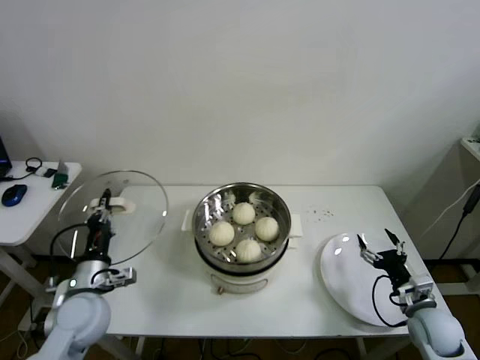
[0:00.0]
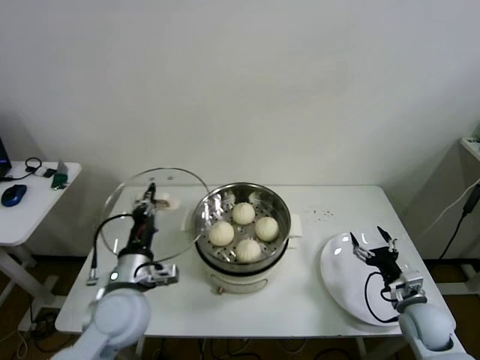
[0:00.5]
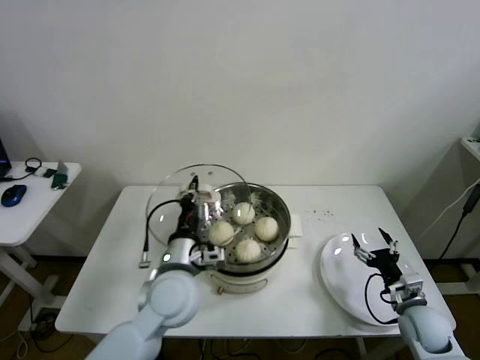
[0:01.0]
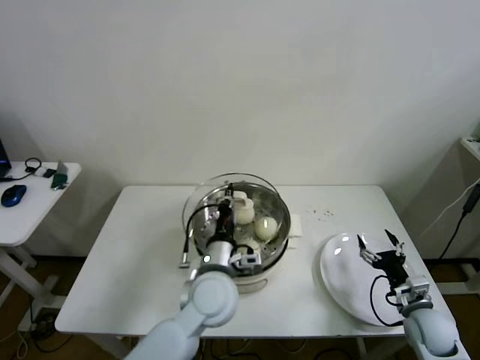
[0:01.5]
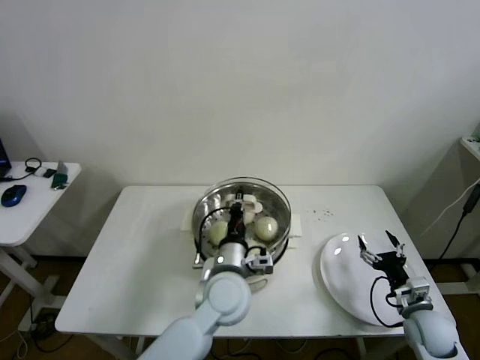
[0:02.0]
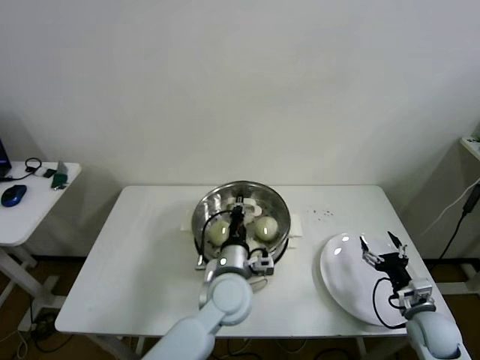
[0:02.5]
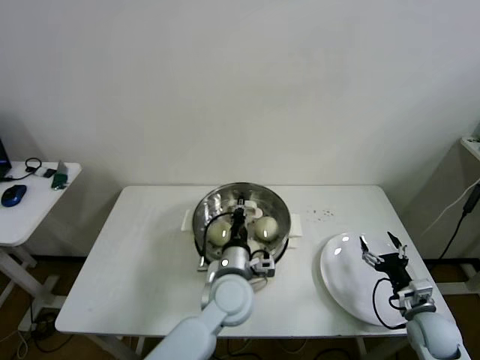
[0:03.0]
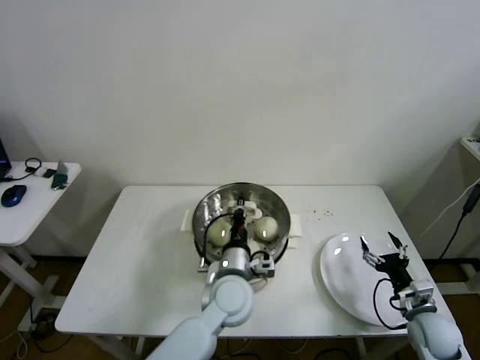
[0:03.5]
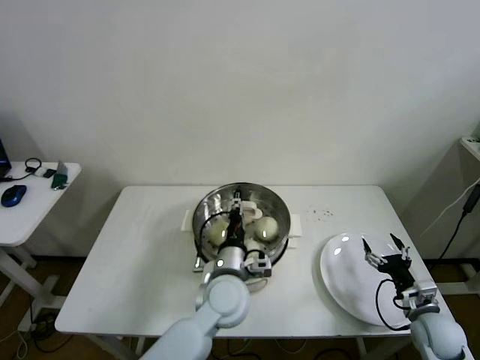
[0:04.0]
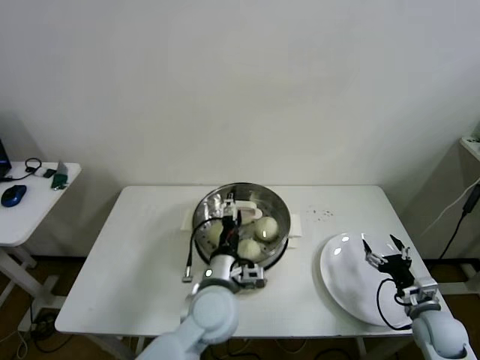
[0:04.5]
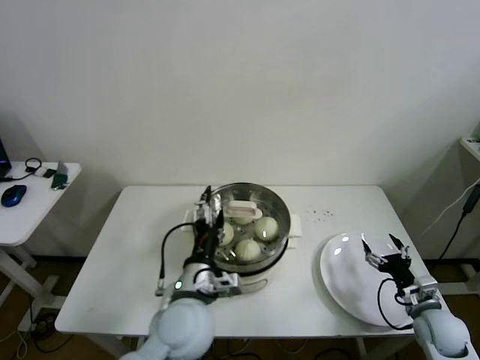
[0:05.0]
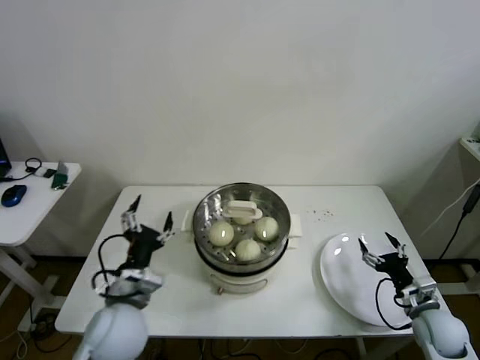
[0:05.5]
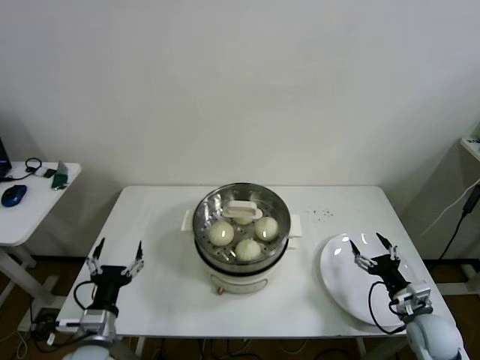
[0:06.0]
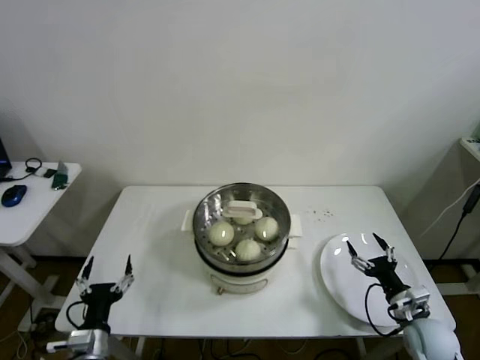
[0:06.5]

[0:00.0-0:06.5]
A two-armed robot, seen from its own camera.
Step, 0.0 to 4.0 s: Place the pot lid on the steamer with left gripper.
0.0 to 2.0 s: The left gripper shifts about 30 cm to the right.
2.0 to 4.5 s: The left gripper opens its fingers.
4.5 to 6.5 s: The left gripper travels to the left, backward and downward by approximately 30 cm.

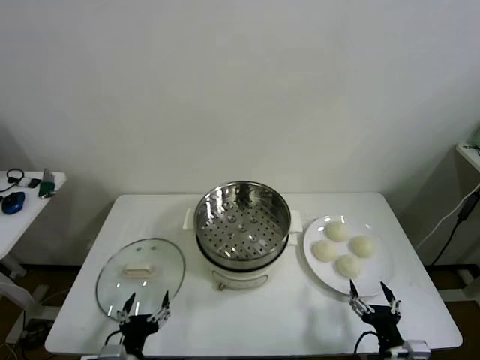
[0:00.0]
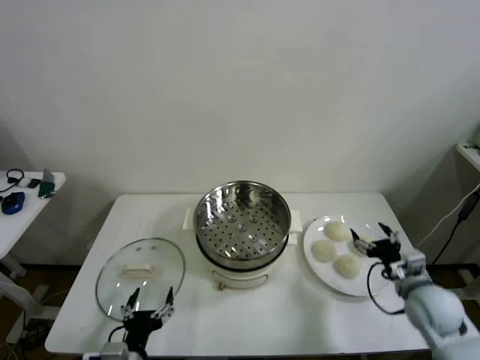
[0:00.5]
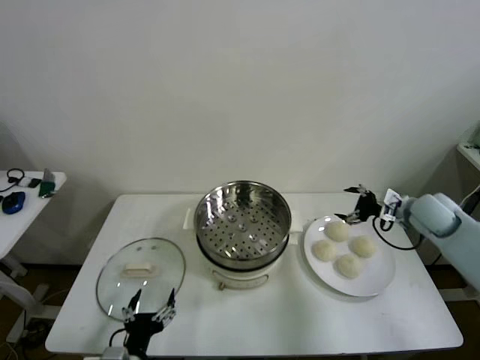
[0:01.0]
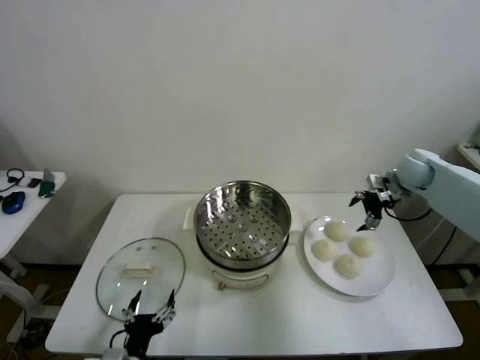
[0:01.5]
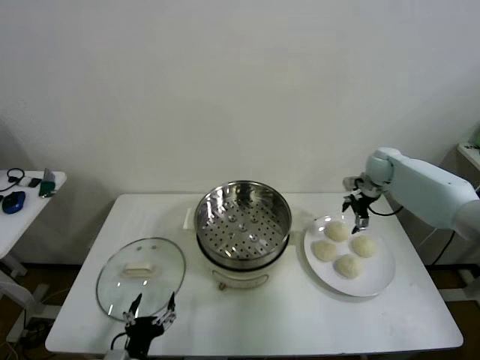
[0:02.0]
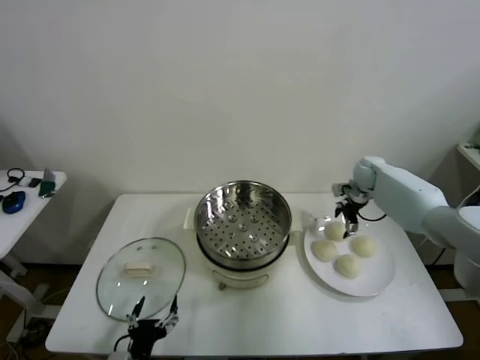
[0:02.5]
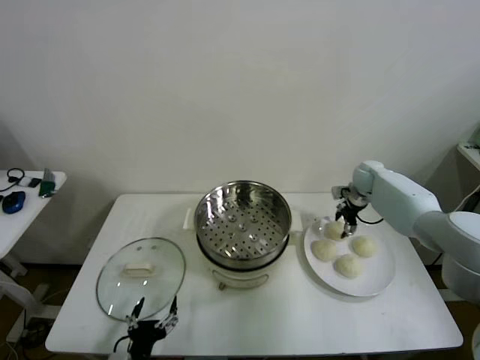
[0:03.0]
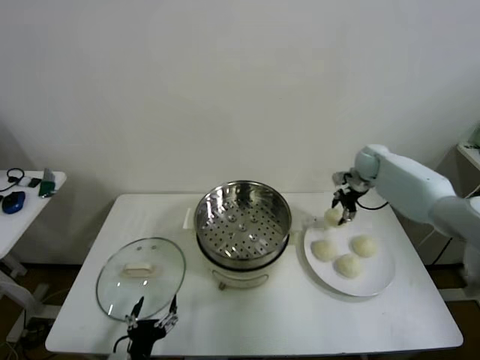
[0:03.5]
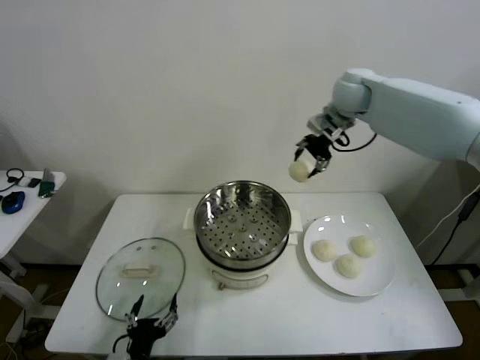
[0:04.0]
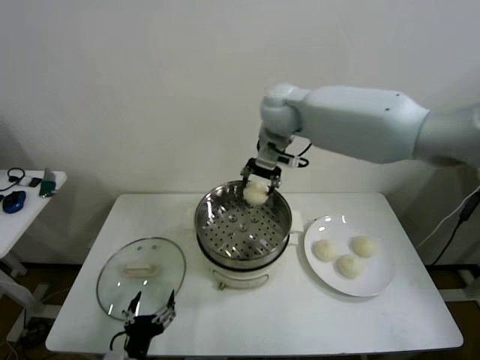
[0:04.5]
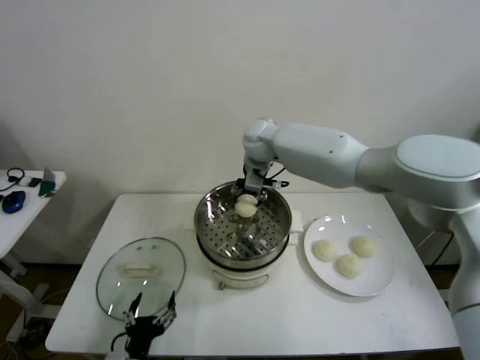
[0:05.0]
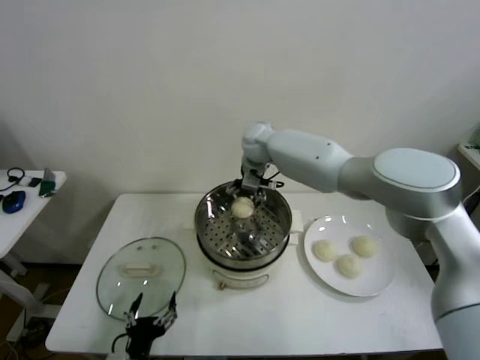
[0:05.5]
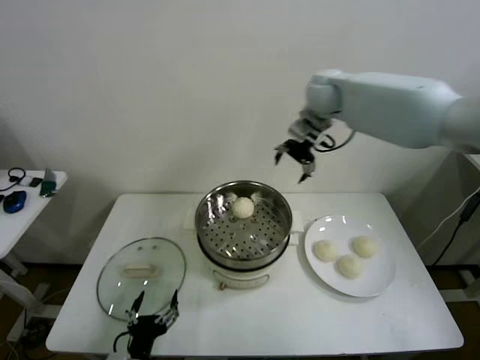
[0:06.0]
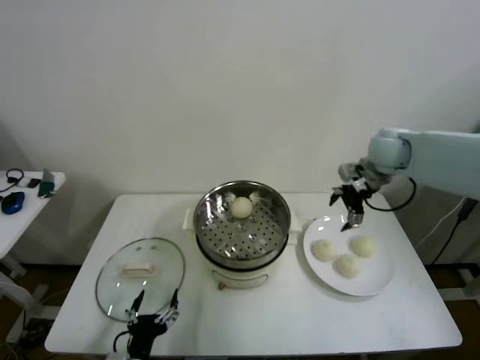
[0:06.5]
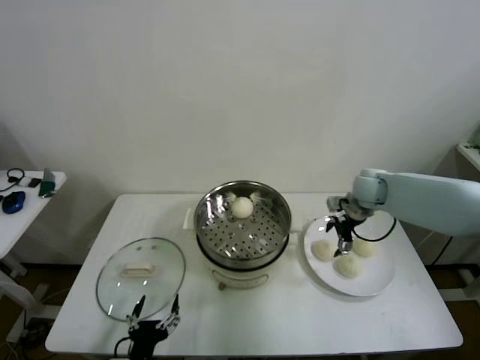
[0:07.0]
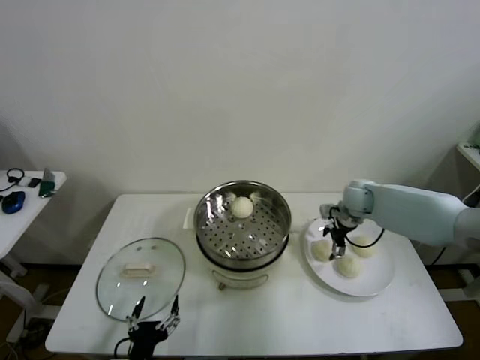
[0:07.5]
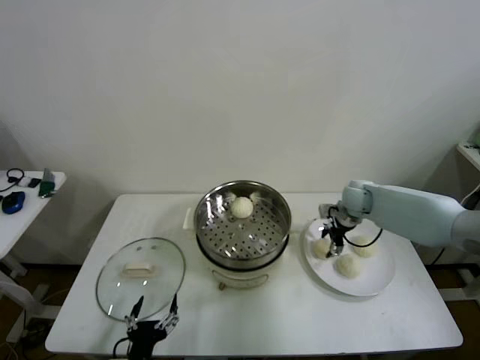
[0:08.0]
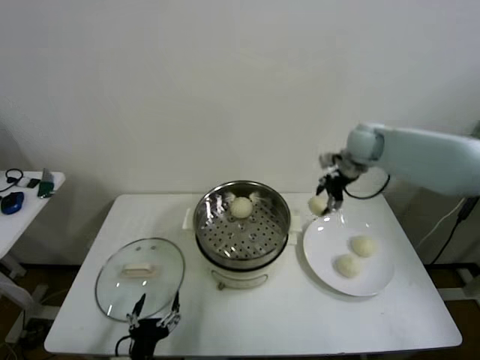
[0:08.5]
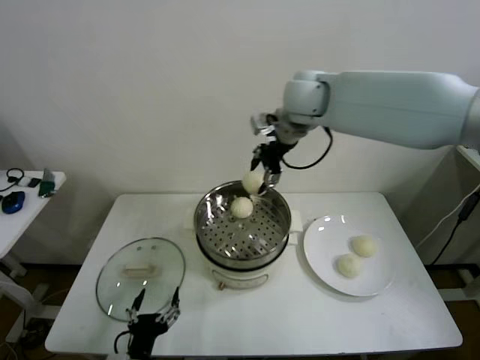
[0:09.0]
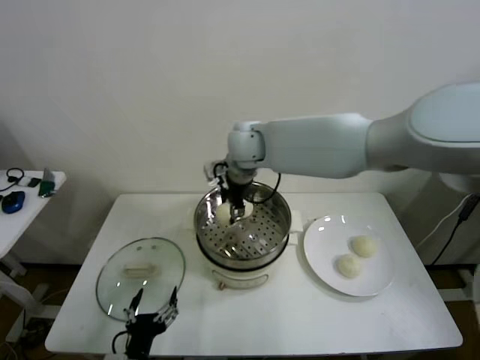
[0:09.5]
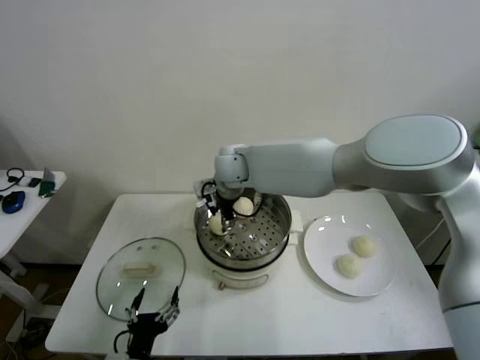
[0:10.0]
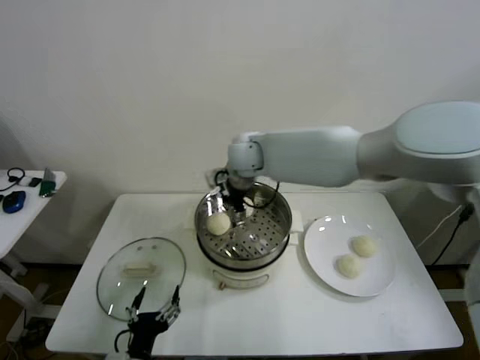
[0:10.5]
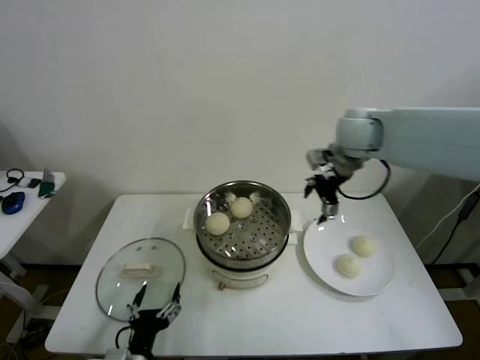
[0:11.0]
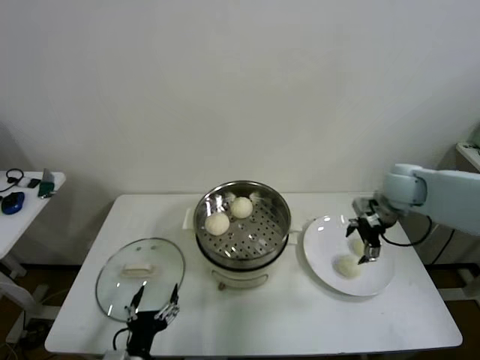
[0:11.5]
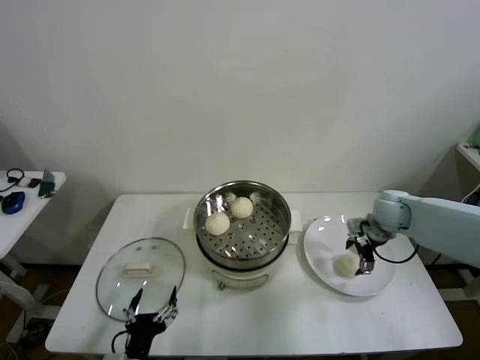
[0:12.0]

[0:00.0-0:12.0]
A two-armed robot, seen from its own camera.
Step, 0.0 to 3.0 s: Grasp the baozi in the plate with right gripper.
Step, 3.5 to 5.5 s: Place the baozi on the steamer with right gripper.
Step, 6.0 to 7.5 s: Grasp the baozi in the plate with right gripper.
Step, 8.5 to 10.0 s: Place the baozi on the steamer with right gripper.
2.0 to 4.0 s: The right gripper goes some 30 cm upward and to the left, and closes up.
4.0 to 6.0 s: The right gripper goes to the left and returns, some 15 cm each way, and opens its fingers.
6.0 to 8.0 s: The right gripper is displaced downward by approximately 25 cm, and closes up.
8.0 to 10.0 s: The right gripper goes some 35 cm to the left.
10.0 to 12.0 s: The right gripper shifts some 40 cm to the right, and opens its fingers.

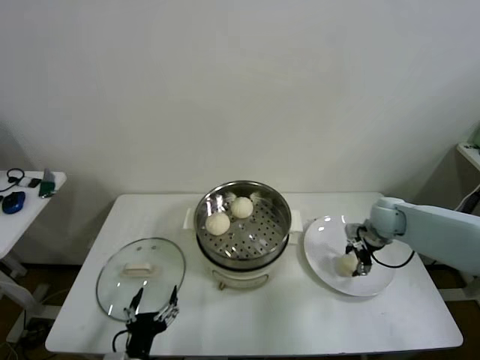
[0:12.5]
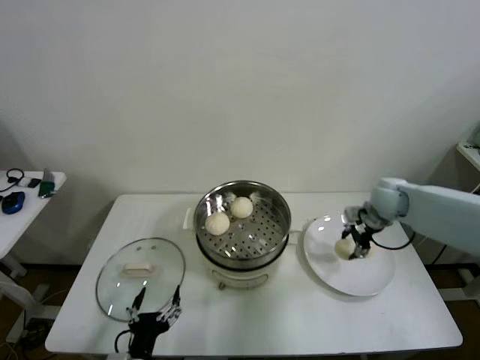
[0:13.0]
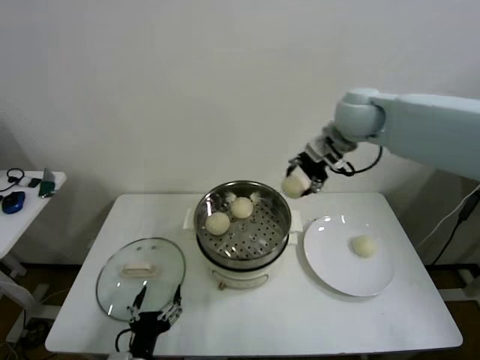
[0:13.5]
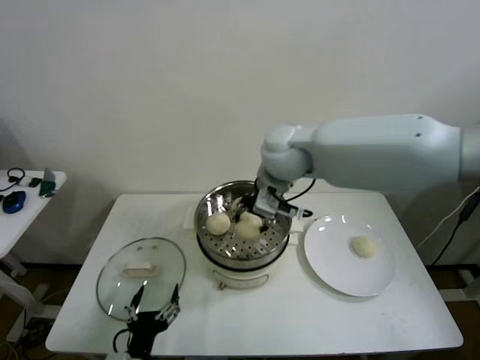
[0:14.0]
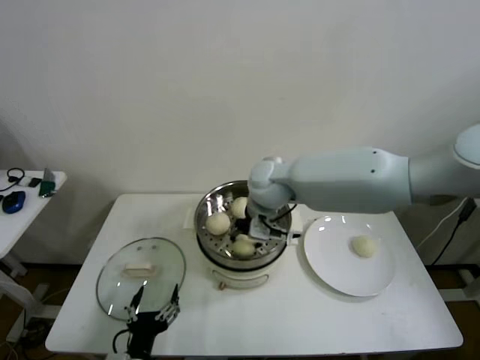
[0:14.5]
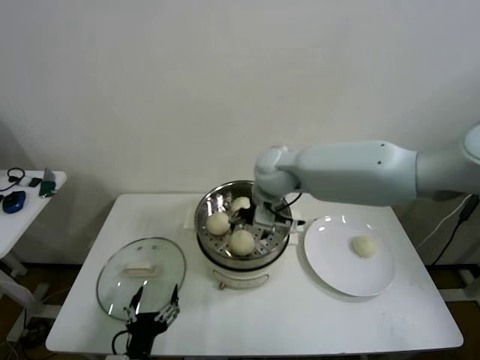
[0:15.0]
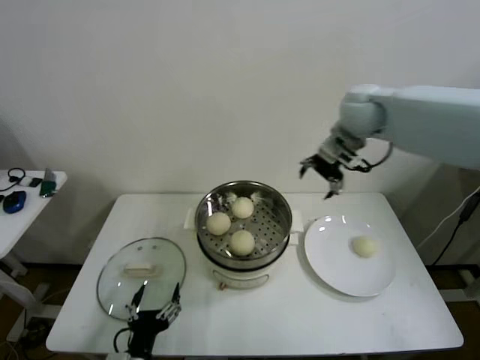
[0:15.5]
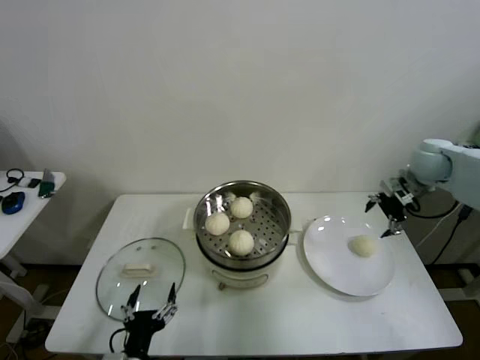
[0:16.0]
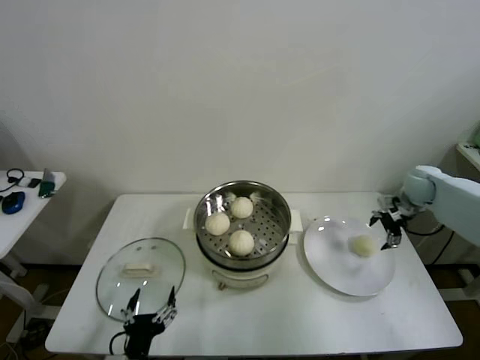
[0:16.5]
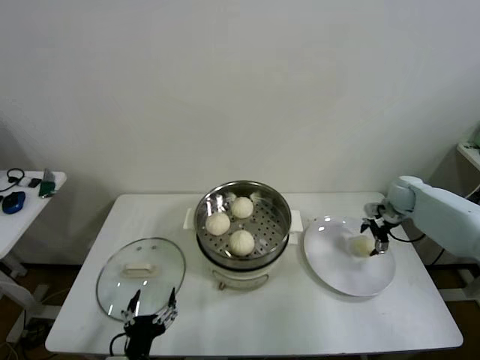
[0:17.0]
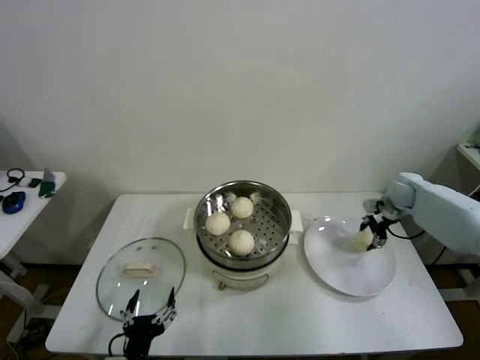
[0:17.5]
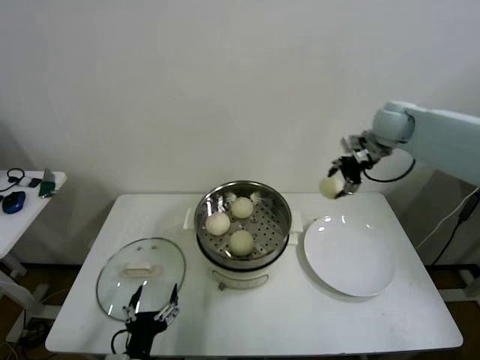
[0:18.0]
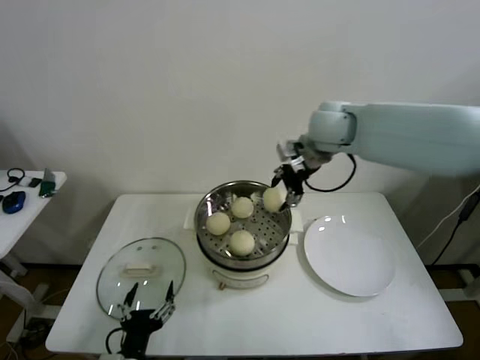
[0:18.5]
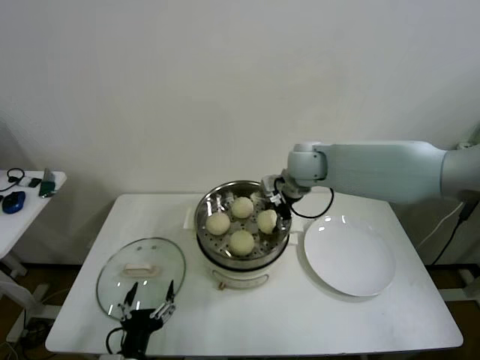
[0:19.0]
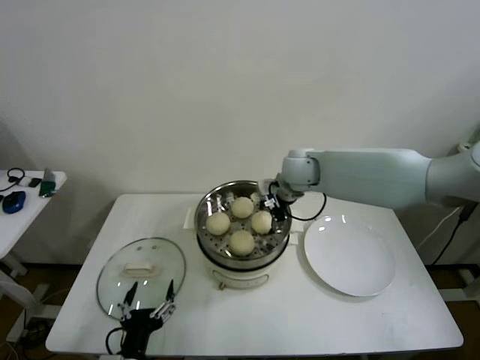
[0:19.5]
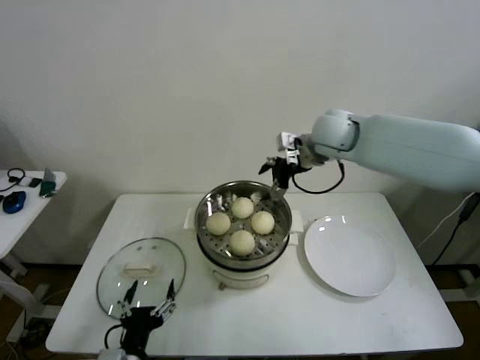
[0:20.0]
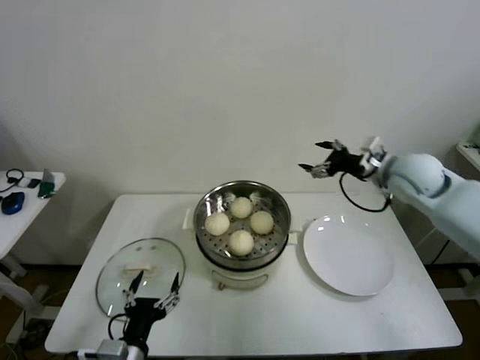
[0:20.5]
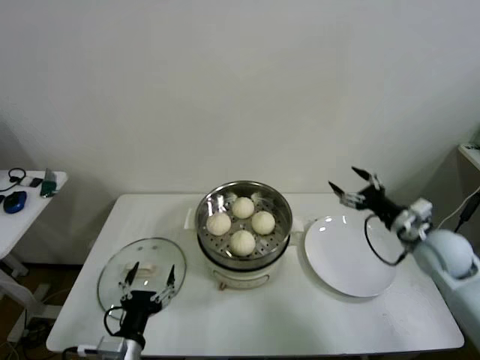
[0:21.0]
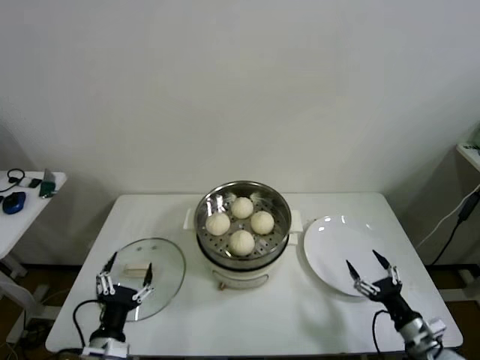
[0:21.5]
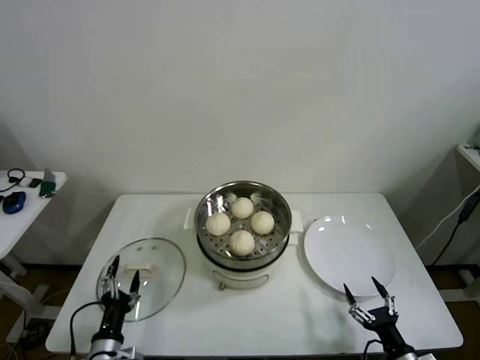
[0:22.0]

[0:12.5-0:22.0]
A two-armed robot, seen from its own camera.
Step, 12.5 to 14.5 s: Place the baozi on the steamer with right gripper.
Step, 15.0 to 17.0 s: Grasp the baozi in the plate with right gripper.
Step, 17.5 to 19.0 s: Place the baozi on the steamer with right gripper.
12.5 to 14.5 s: The right gripper is displaced to the left and upward by about 35 cm.
14.5 to 16.5 s: The right gripper heads to the right, covering roughly 40 cm, and opens its fingers.
16.5 to 18.0 s: The right gripper is displaced upward and to the left by roughly 25 cm, and closes its fingers.
18.0 to 20.0 s: The right gripper travels to the left by some 15 cm, and opens.
20.0 to 22.0 s: The right gripper travels downward, backward and to the right by about 60 cm, while the left gripper shifts approximately 10 cm downward and to the left.
